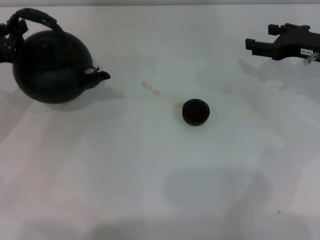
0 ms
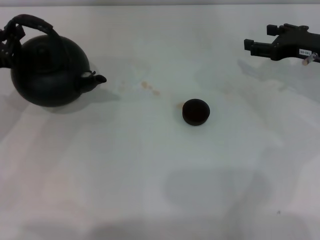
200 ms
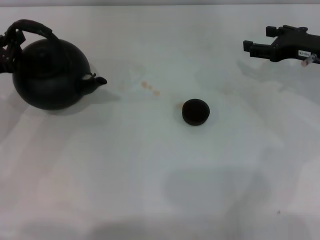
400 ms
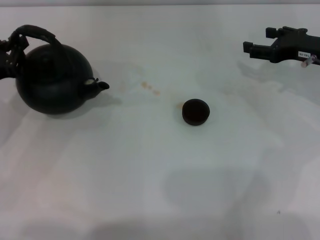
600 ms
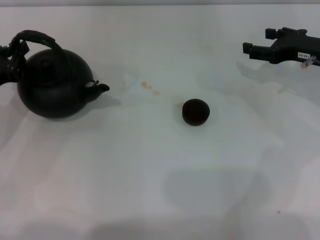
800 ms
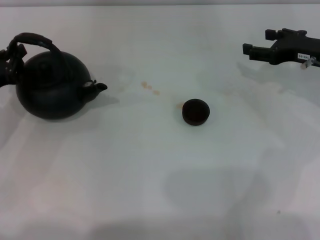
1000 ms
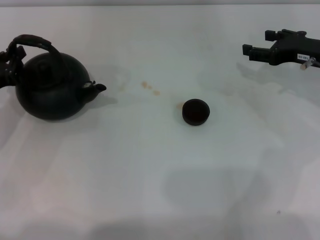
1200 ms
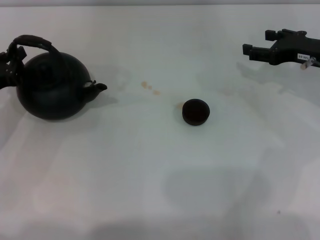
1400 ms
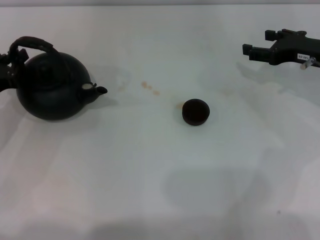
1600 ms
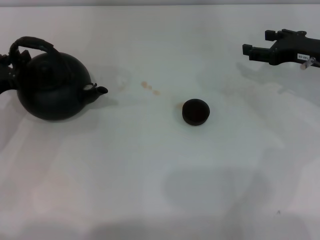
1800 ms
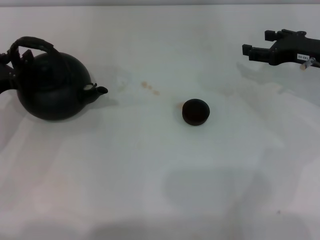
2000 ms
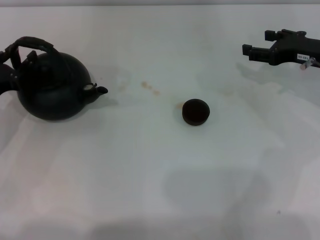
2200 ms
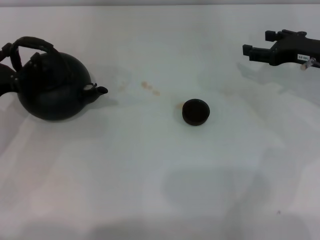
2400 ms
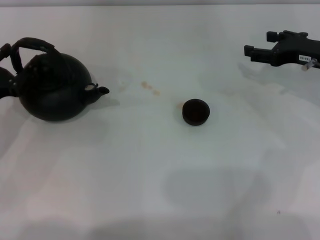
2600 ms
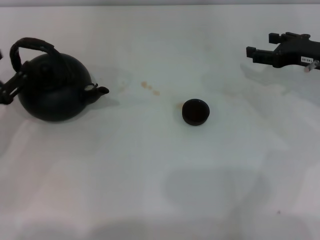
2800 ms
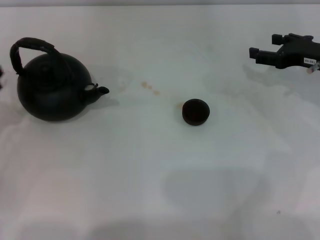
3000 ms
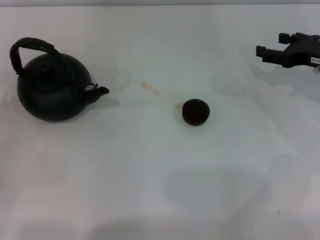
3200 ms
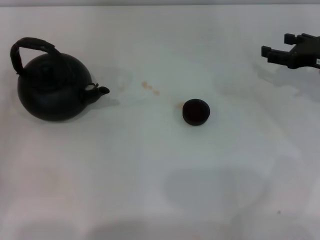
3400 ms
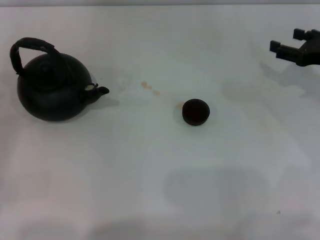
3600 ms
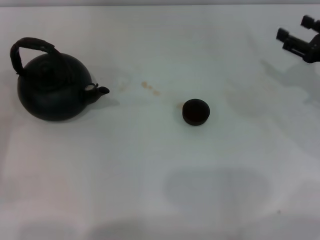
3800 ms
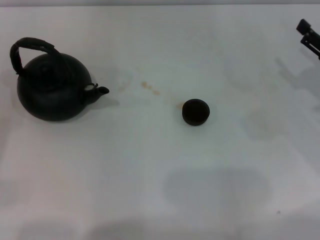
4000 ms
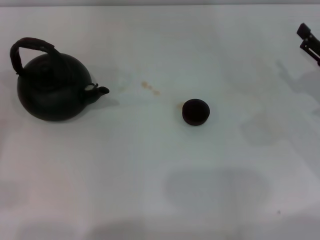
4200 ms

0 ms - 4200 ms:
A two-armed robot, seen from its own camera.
Task of the whole recording: Grasp the handle of the teapot with one hand and pour tea into the teacup.
Step, 0 ms - 2800 ms: Put down the teapot with the left gripper.
0 ms - 1400 ms: The grippers stay close to where they were, moving slightly.
1400 ms - 2800 ms: The left gripper opens up.
2800 ms - 4200 ms: The right gripper shifts about 10 cm backward; the left gripper is displaced to the left and backward by approximately 15 cm.

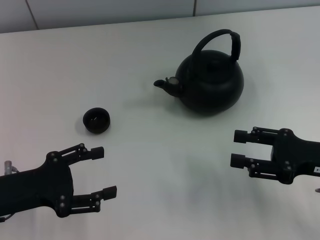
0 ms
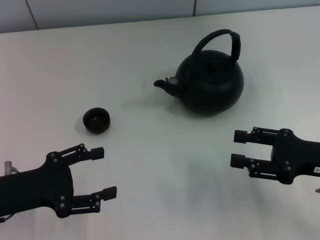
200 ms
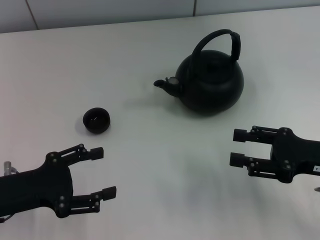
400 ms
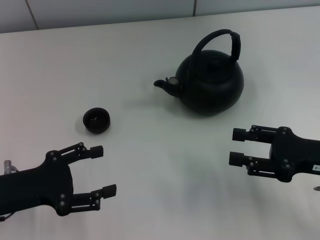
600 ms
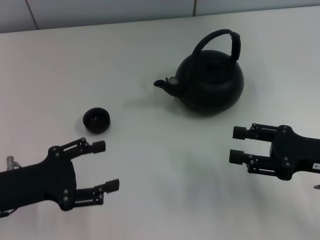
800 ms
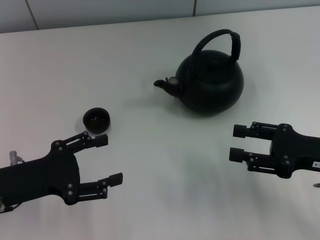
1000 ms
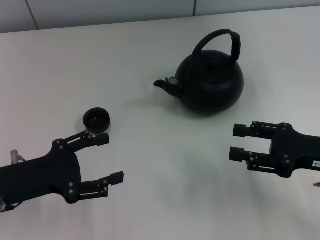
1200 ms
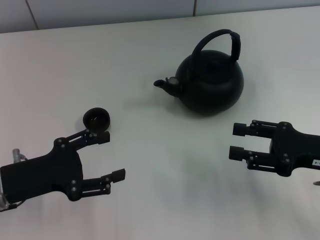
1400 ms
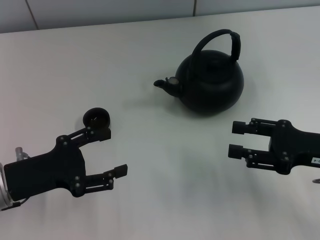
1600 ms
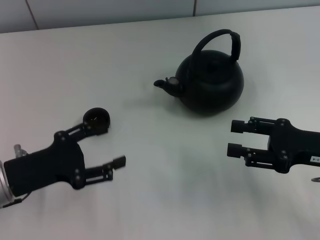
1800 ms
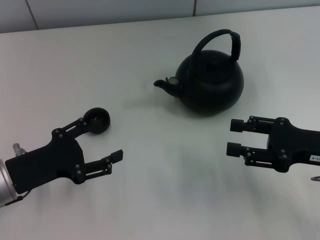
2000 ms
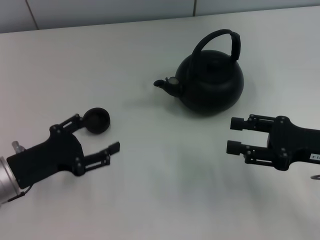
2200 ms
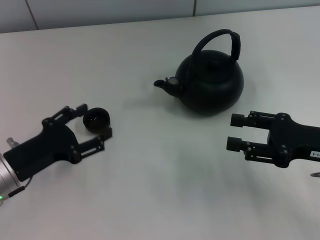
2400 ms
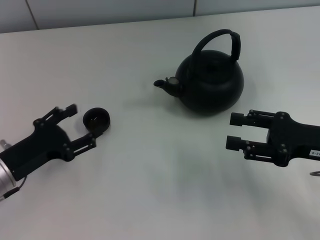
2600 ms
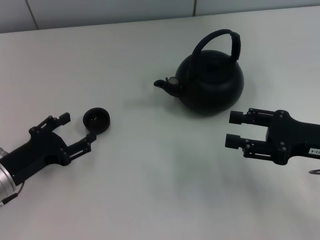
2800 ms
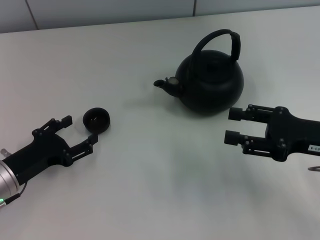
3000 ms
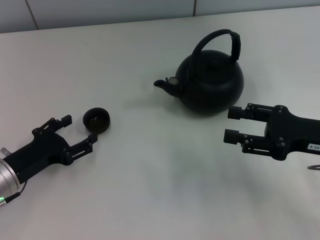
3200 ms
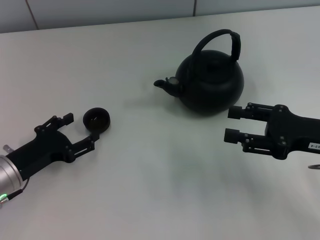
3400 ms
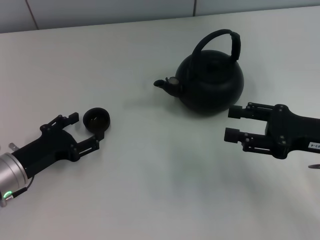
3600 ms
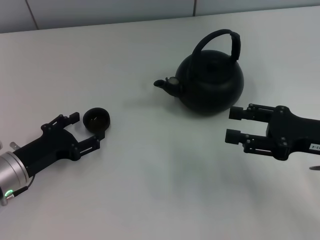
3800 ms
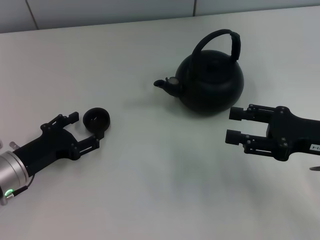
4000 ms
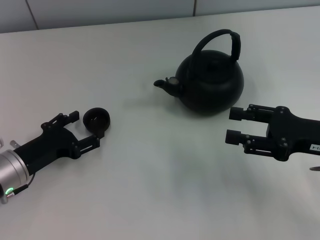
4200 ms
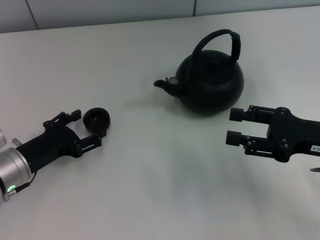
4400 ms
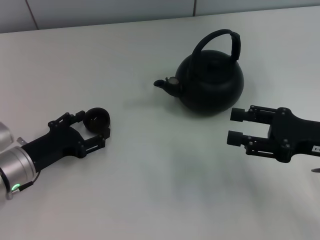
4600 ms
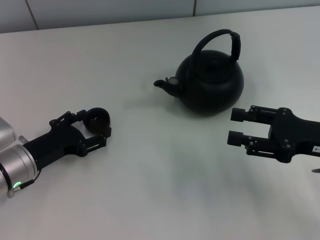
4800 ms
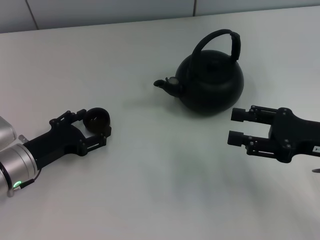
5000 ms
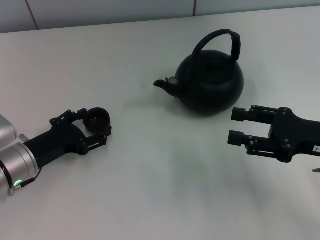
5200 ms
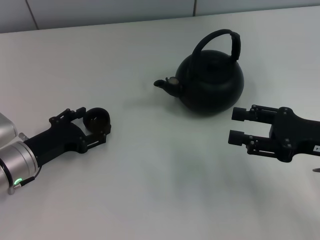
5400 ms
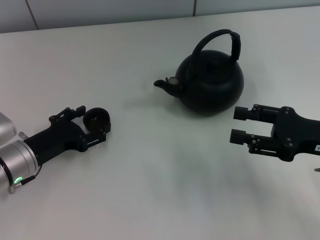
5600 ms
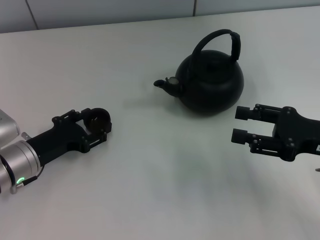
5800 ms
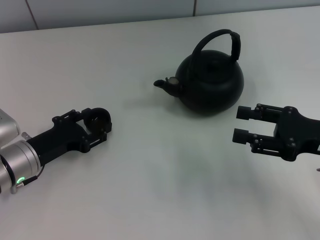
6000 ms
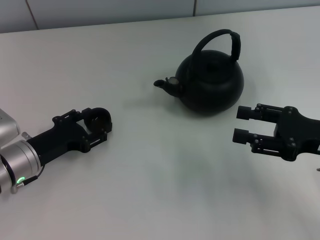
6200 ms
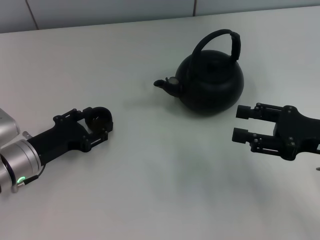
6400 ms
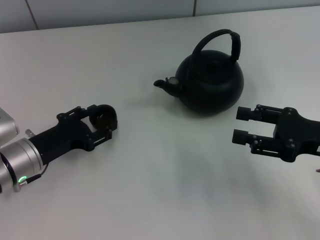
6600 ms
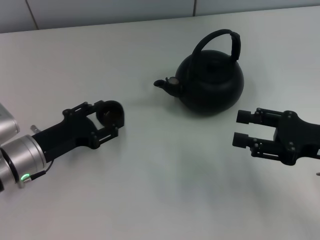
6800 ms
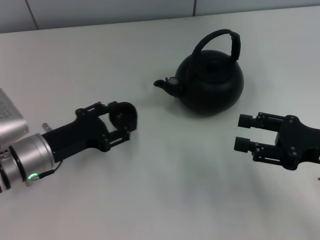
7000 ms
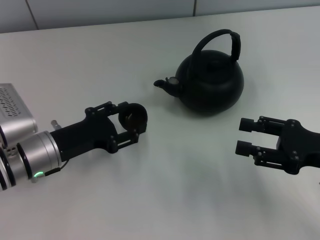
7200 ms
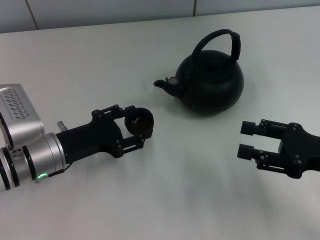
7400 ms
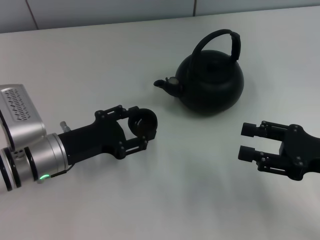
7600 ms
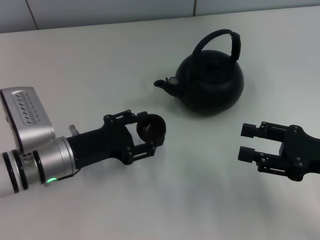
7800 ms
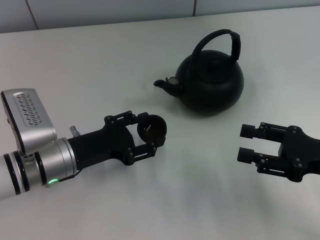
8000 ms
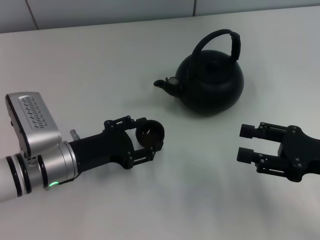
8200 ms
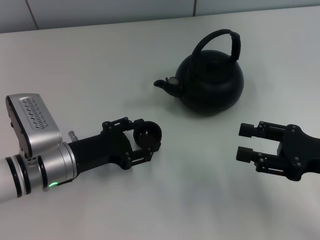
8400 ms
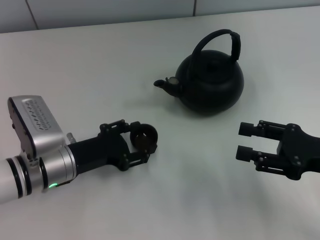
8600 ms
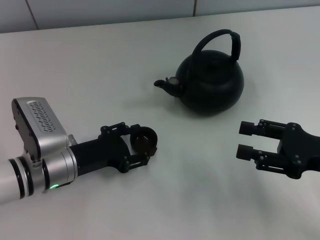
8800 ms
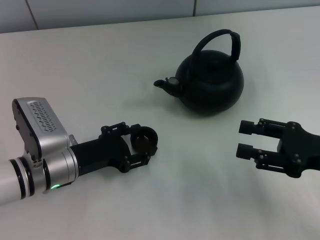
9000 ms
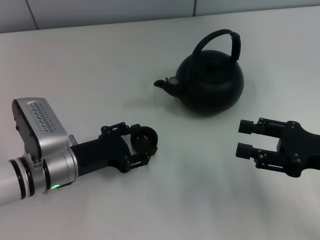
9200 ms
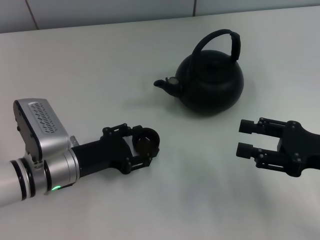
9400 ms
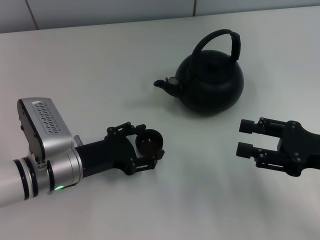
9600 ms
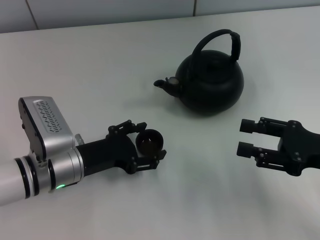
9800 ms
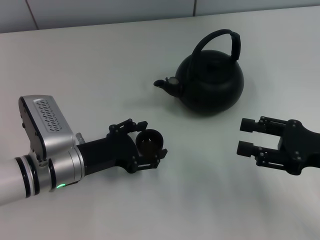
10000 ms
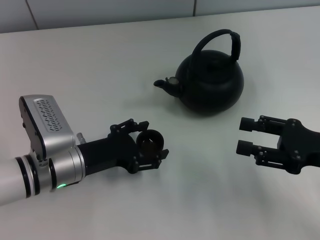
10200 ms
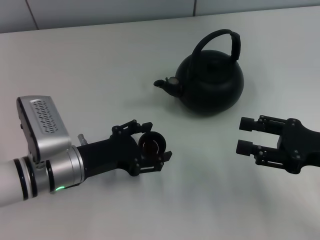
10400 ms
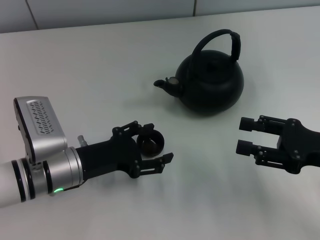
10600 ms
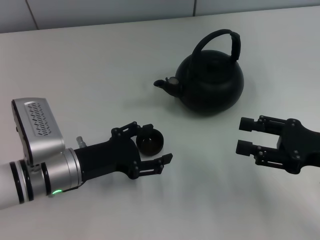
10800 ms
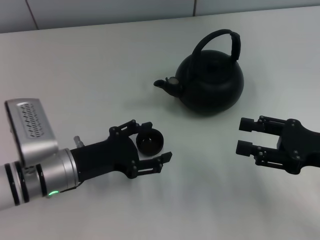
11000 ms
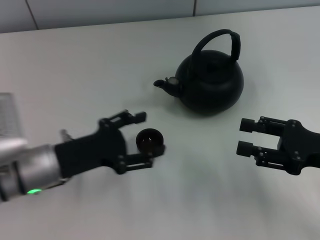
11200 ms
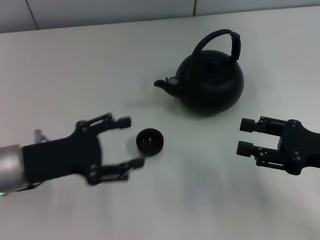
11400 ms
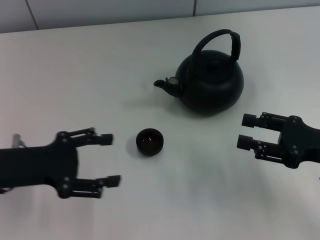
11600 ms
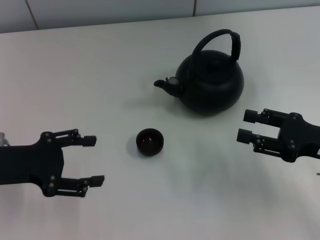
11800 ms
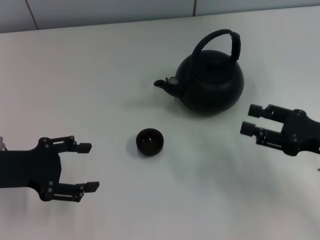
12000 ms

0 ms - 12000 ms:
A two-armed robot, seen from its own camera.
Task of the whole recording: Grasp the handle of the teapot with one hand and pour tea into the teacup.
Step, 0 ms - 6400 ms: Pick up the teacup with the left gripper.
Step, 6800 ms - 10600 ms: Place the teacup in the center of view with the left gripper.
0 ms - 1600 ms: There are only small adjustments of the grippers.
1600 ms - 3000 ms: The left gripper shifts roughly 5 cm downward.
3000 ms - 4400 ms: The grippers move only a little.
4400 ms - 6000 ms: The left gripper closes up.
6000 ms - 7600 ms: The left gripper closes its fingers.
7600 ms - 9000 ms: There are only small adjustments of the grippers.
9000 ms - 10400 ms: The left gripper opens up.
10400 ms - 12000 ms: The left gripper goes roughly 15 cm to the left and upward.

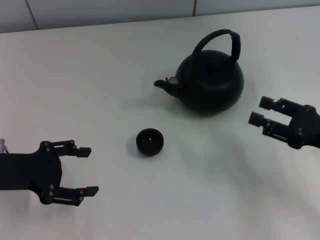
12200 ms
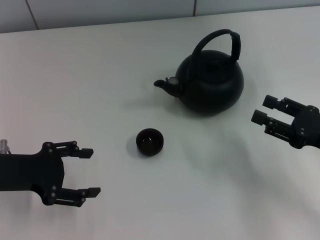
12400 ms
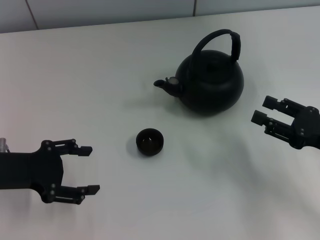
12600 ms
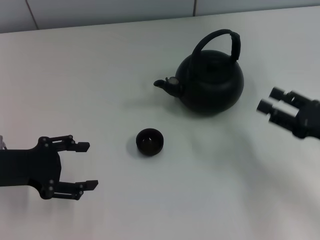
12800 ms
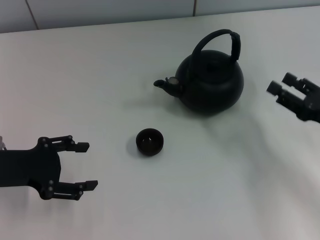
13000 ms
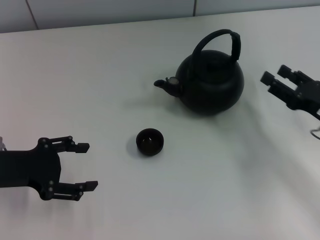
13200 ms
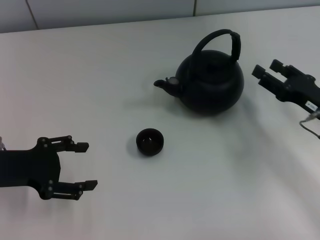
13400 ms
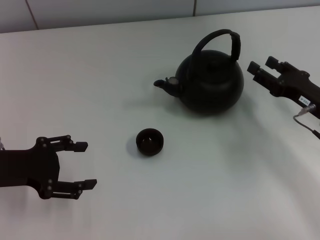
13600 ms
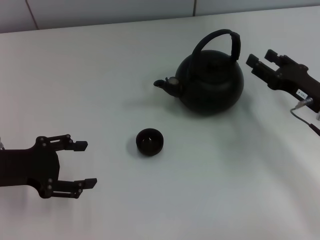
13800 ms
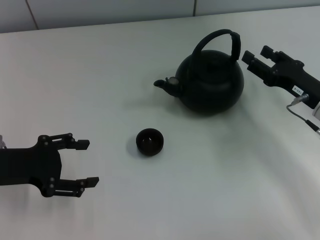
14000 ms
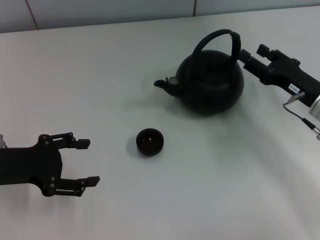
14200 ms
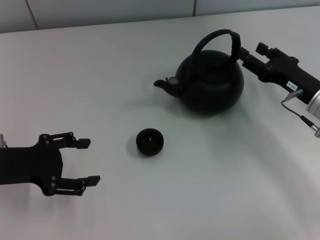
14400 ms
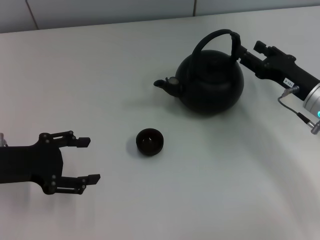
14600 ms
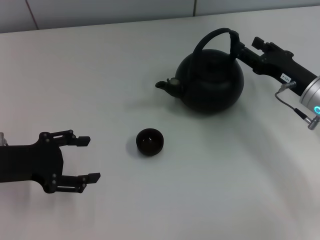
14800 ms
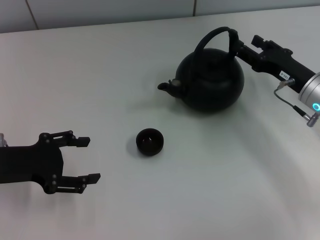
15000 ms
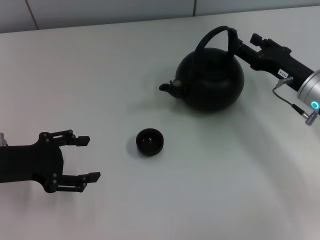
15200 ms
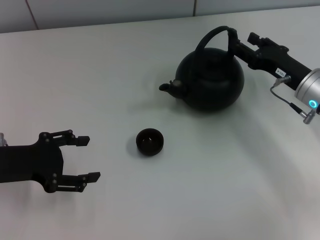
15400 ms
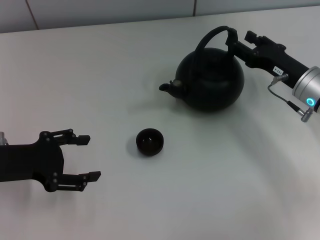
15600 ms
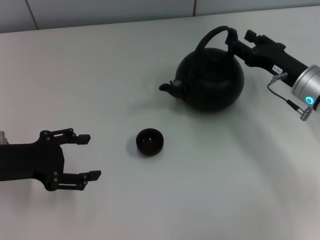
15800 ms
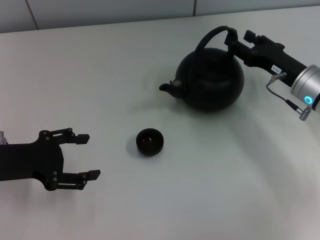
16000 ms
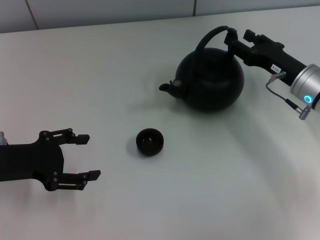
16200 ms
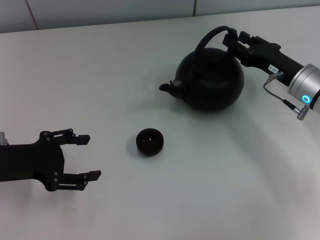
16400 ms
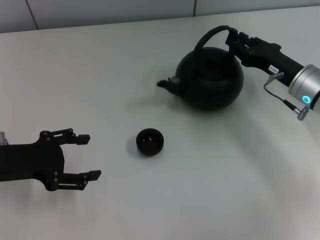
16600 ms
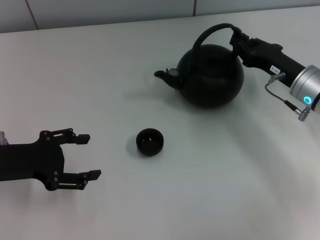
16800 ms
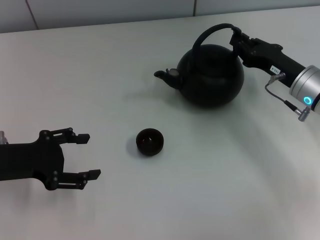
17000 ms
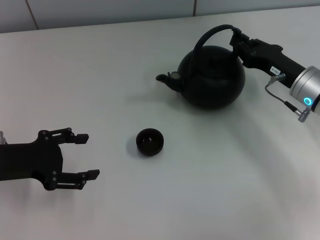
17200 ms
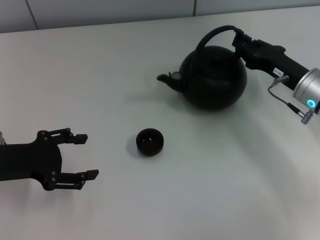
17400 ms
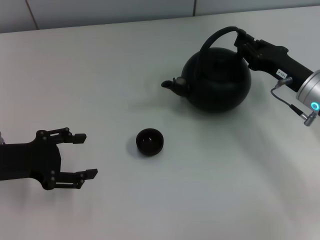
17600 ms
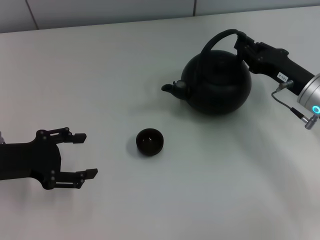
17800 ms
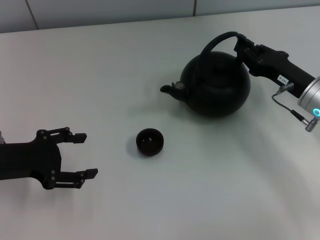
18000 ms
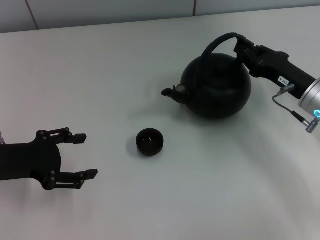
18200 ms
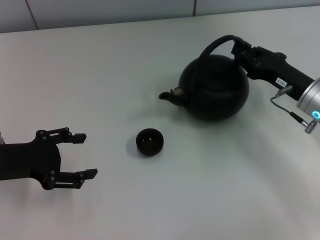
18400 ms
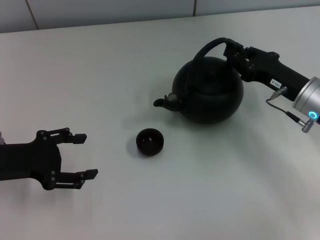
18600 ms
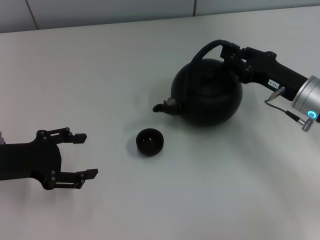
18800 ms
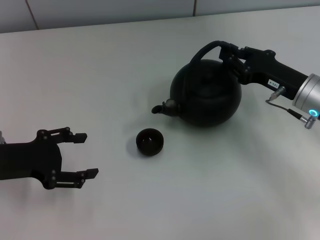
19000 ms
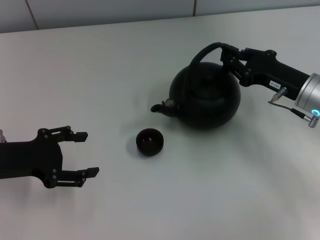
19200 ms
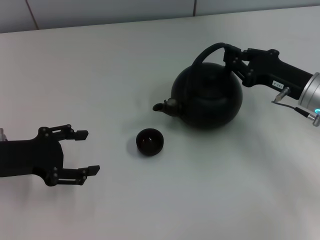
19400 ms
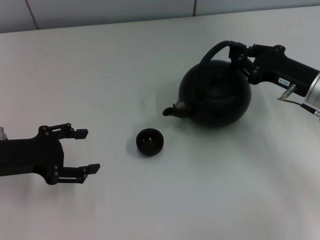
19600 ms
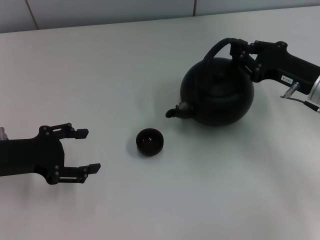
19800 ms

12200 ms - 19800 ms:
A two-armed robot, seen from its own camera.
Task of the whole recording: Grasp the handle of the teapot with one hand and pour tea into the teacup.
Step, 12200 ms - 18600 ms: Pick up the teapot with the right gripper.
12200 ms - 13800 ms: The right gripper travels forward by about 5 cm.
13800 ms - 15200 ms: The grippers make only small movements.
15200 ms - 16800 ms: The right gripper closes up.
16800 ms - 18200 ms: The grippers stay close to where they were, moving slightly.
